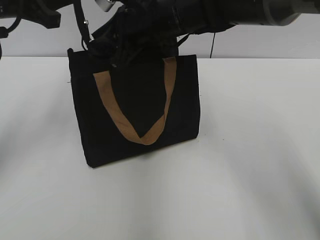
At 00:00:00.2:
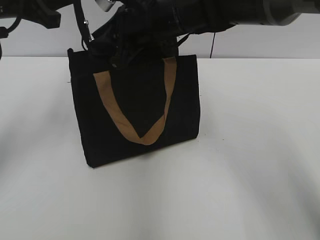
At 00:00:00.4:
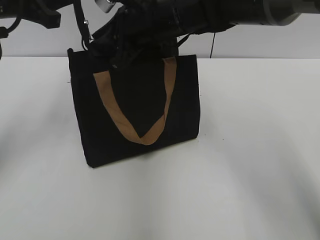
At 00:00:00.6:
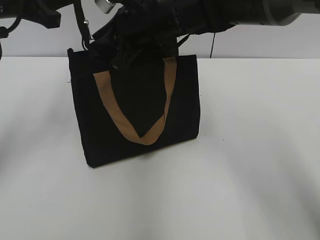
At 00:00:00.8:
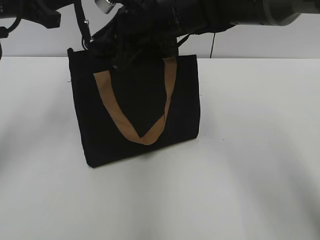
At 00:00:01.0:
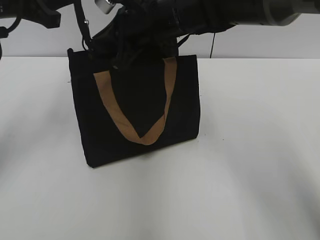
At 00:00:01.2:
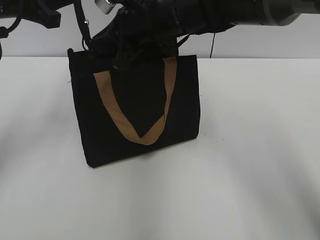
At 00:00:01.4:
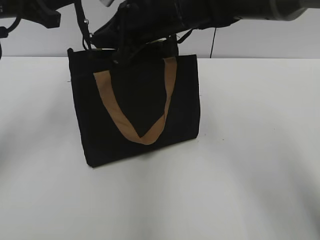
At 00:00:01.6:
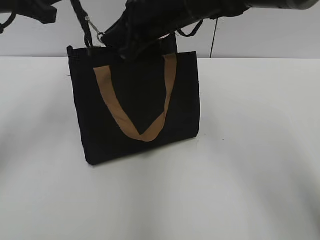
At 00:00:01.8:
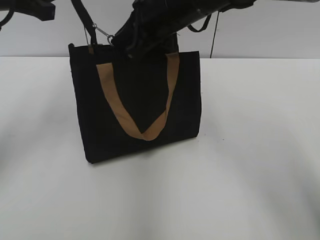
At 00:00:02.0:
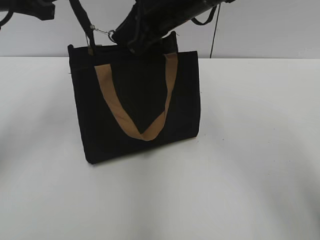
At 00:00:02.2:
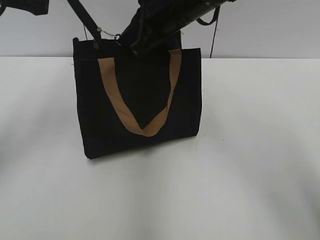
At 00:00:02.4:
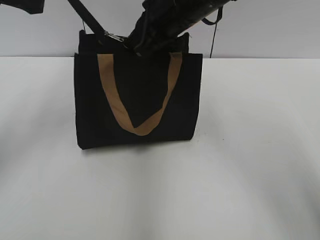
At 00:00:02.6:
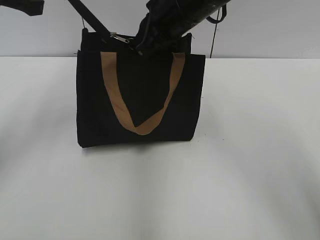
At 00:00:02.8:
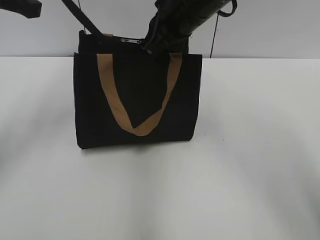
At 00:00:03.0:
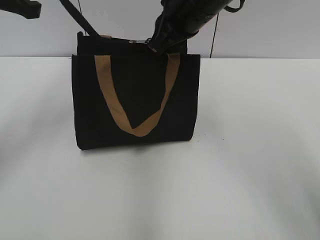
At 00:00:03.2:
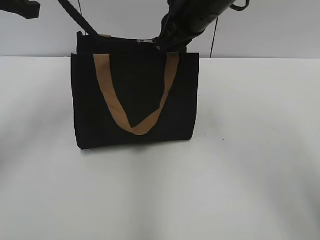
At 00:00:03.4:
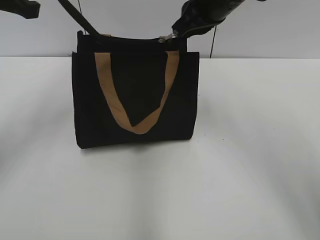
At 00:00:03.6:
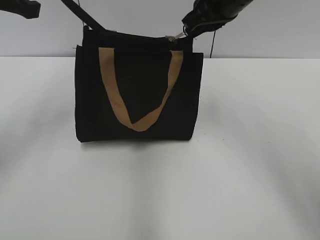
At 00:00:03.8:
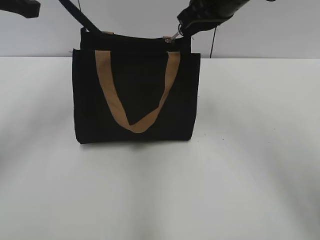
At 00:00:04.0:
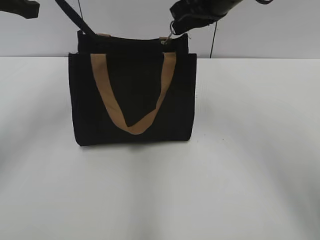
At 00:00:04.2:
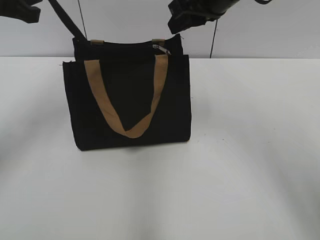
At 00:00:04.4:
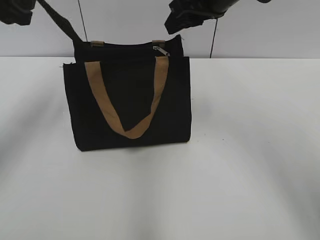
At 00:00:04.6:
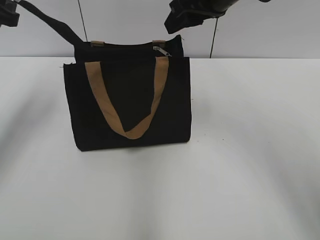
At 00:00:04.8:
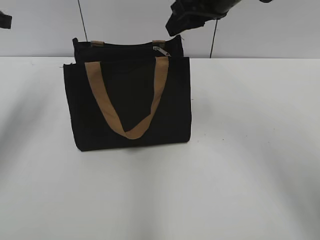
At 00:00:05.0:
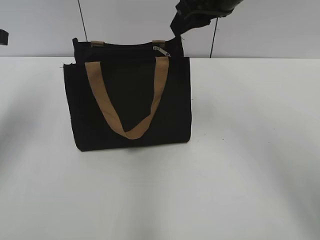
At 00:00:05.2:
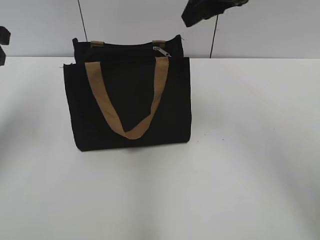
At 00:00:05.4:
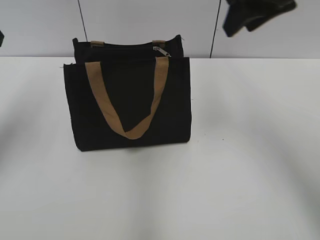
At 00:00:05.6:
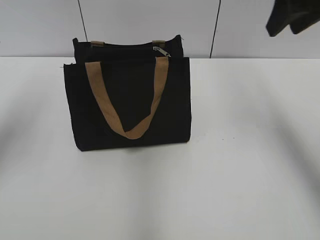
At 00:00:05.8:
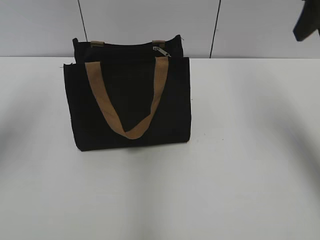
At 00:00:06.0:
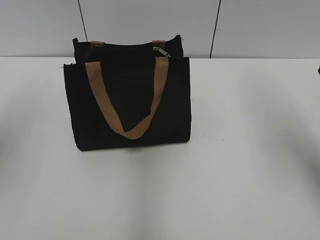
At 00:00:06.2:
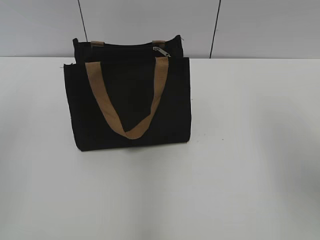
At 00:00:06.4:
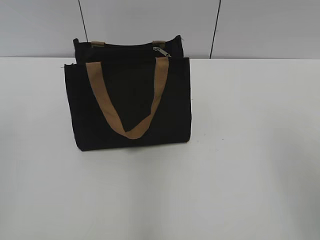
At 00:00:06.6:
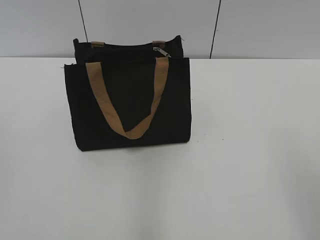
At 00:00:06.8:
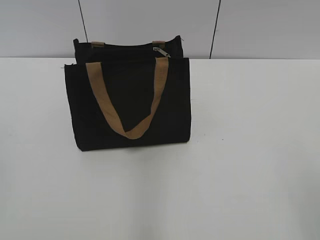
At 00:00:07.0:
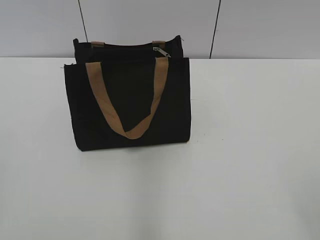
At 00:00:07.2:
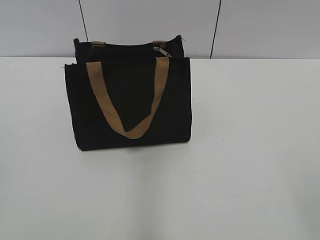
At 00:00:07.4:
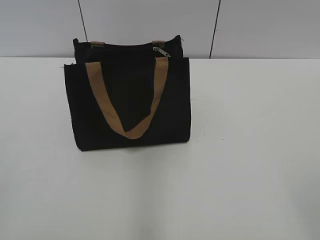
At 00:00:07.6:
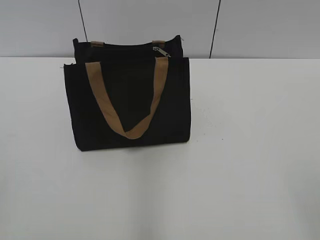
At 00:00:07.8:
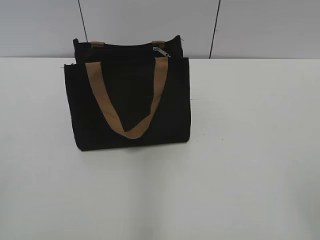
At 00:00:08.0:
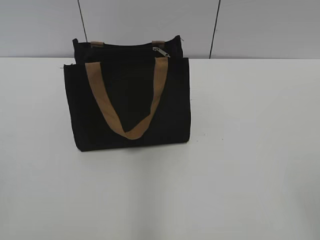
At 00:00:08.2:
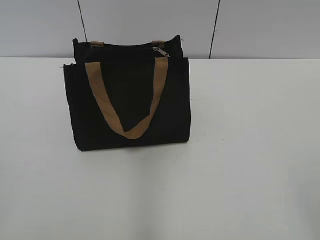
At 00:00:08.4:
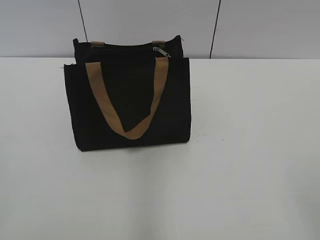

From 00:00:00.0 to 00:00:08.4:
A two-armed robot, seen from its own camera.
Step, from 00:00:00.0 to 00:00:04.0: Zip up the bag with your right hand.
Step, from 00:00:04.2 to 00:00:04.6: Grab the zipper with your left hand.
From 00:00:00.0 to 00:00:01.4: The right gripper closes.
From 00:00:01.4 to 00:00:02.8: The right gripper ends up roughly 5 cm from where it was.
From 00:00:02.8 to 00:00:04.2: The right gripper changes place by some 5 cm.
From 00:00:04.2 to 00:00:05.6: The right gripper goes some 10 cm to the right, and opens its fingers, while the left gripper opens up.
From 00:00:05.6 to 00:00:07.0: Both grippers move backward, roughly 30 cm.
